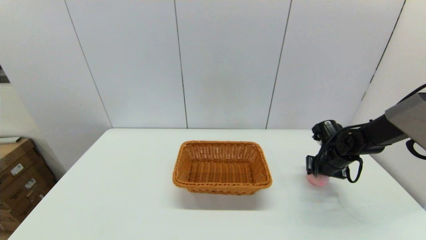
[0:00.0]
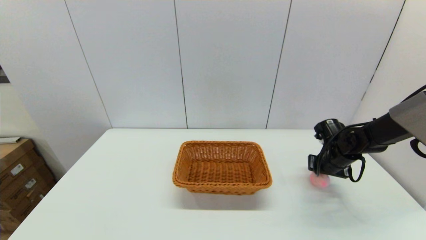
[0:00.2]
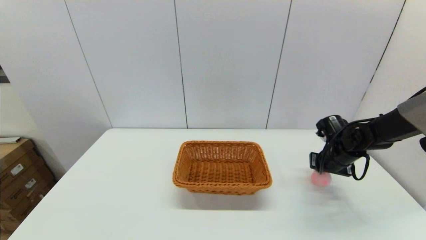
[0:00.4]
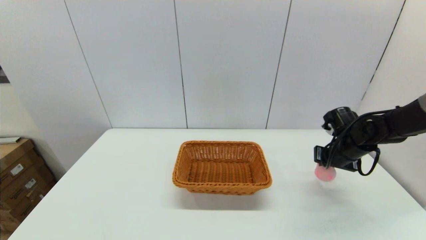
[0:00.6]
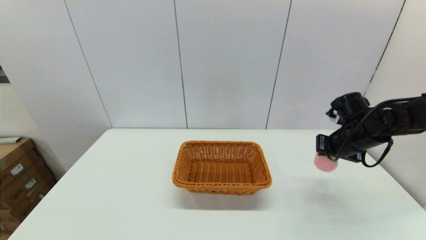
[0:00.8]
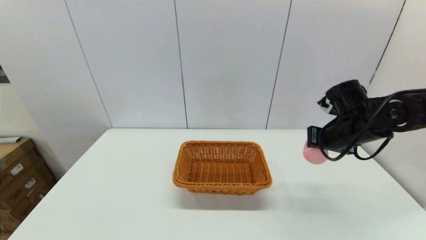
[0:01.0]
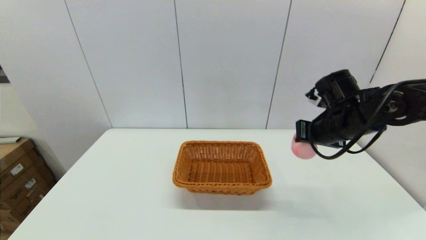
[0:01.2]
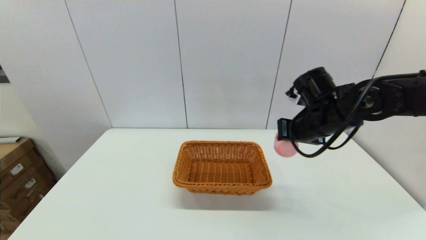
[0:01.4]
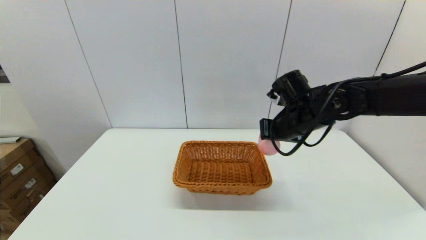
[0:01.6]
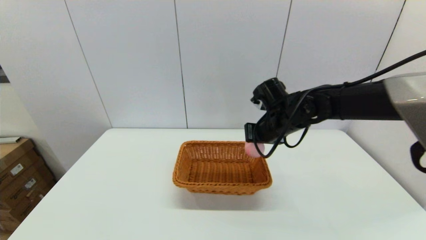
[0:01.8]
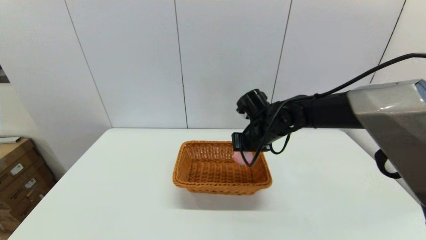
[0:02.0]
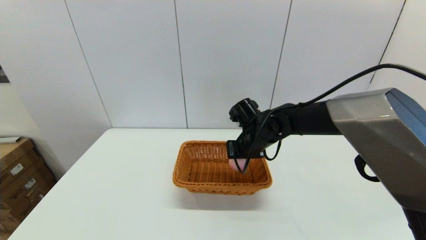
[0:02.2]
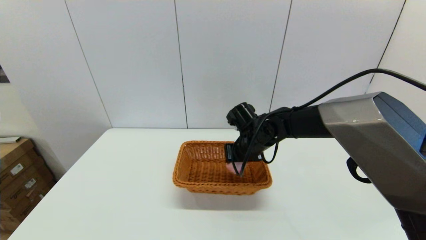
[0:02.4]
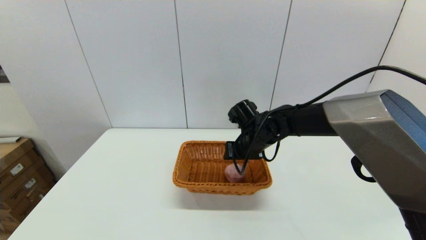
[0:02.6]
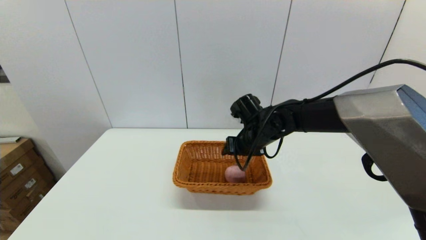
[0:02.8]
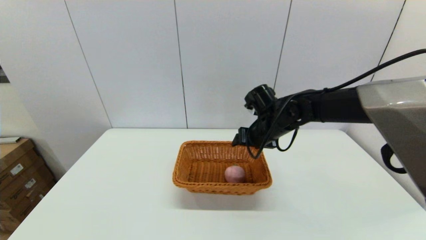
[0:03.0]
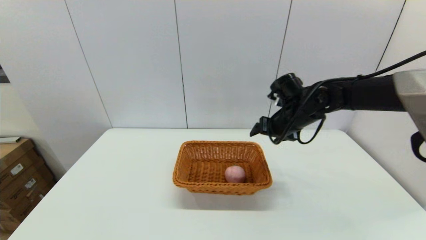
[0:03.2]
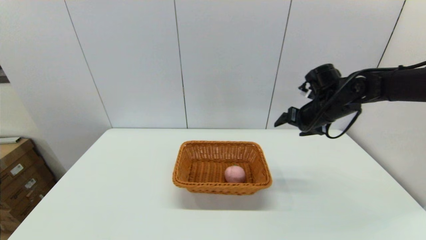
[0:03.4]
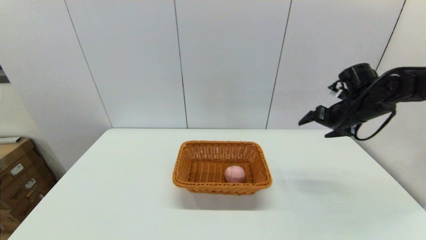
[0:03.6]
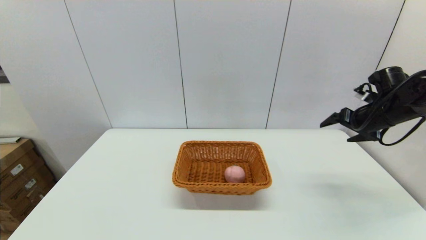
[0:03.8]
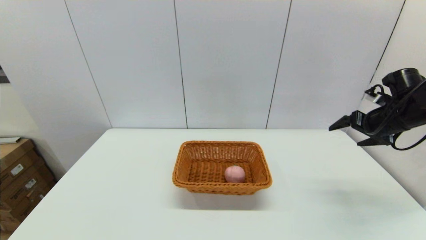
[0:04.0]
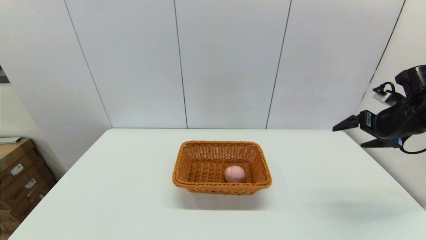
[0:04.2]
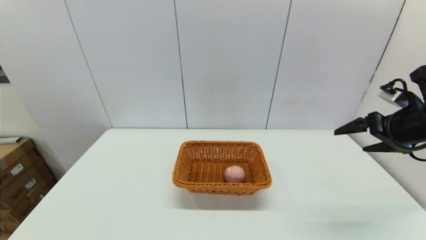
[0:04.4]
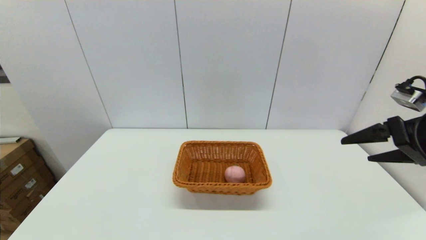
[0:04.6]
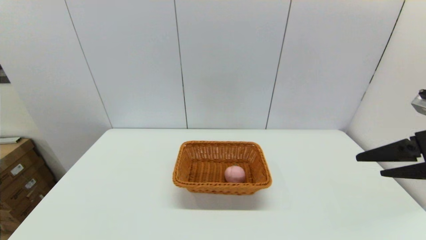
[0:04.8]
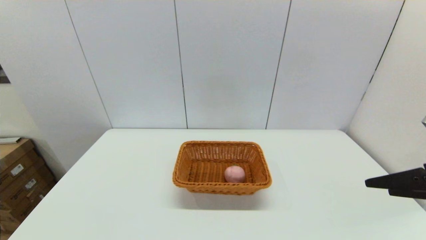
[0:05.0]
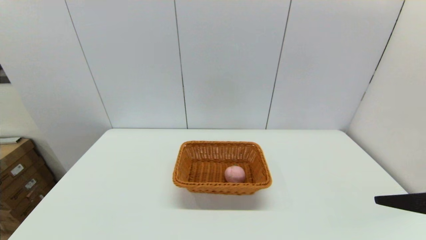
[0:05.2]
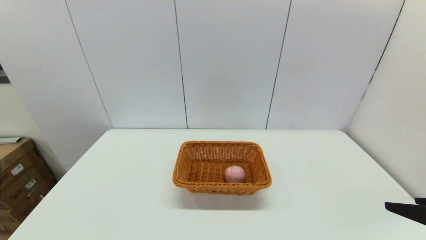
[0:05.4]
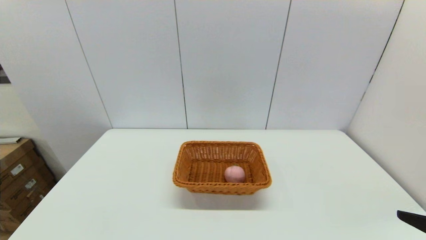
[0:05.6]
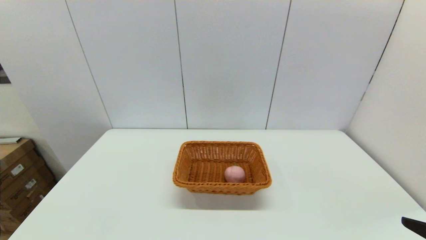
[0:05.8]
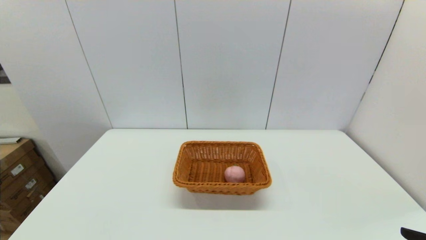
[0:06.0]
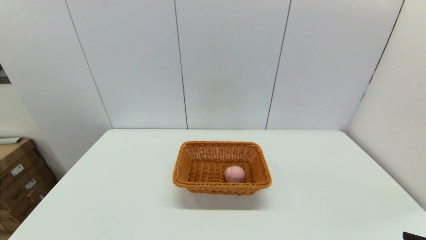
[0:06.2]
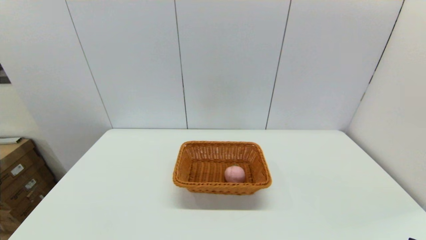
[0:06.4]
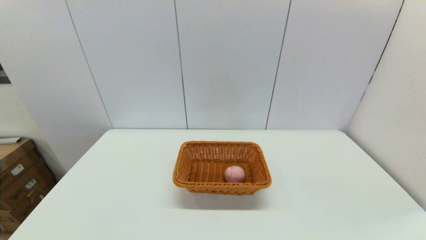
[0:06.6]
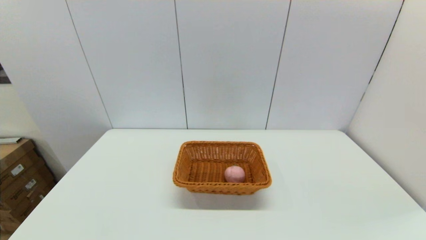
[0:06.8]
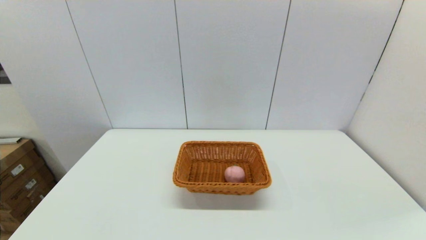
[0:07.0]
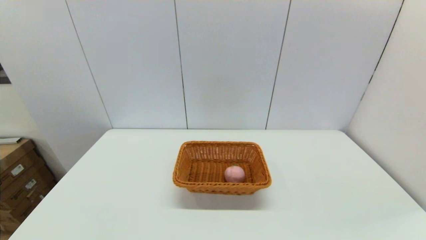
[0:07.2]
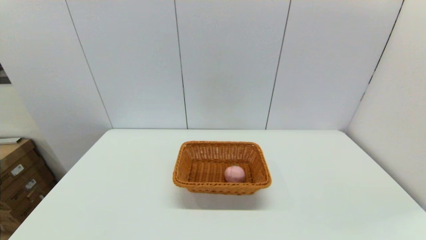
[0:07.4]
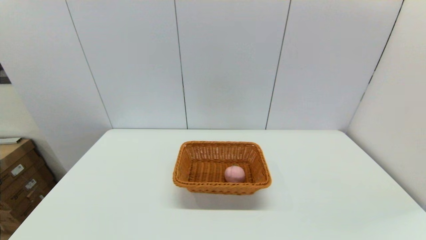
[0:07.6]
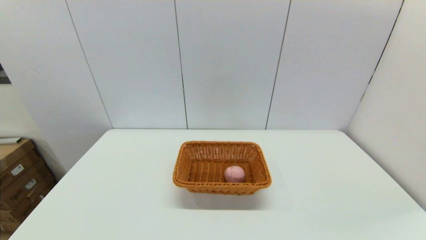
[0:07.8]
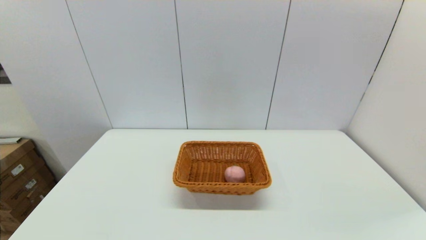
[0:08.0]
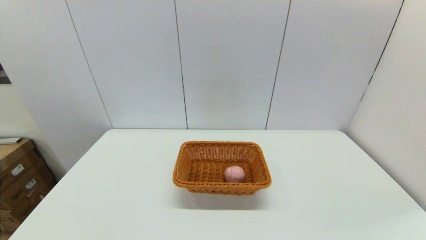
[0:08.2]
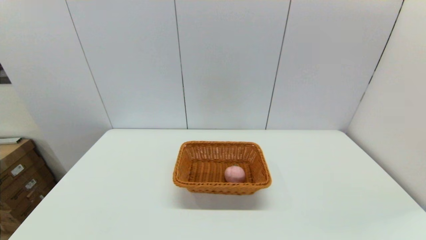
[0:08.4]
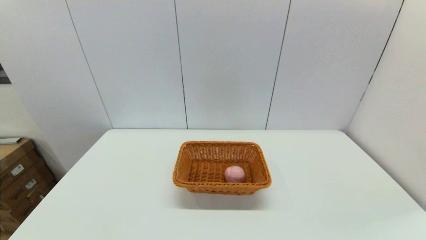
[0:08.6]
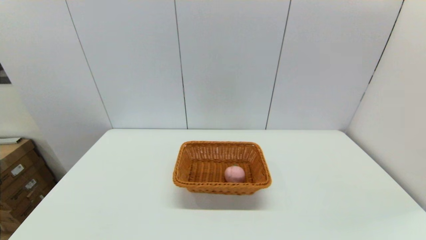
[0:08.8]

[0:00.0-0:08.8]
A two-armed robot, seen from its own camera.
Step, 0:00.4 to 0:02.6: Place the peach into the light basket with the right gripper.
0:00.0 to 0:01.4: The right gripper travels upward and to the left by roughly 20 cm, and closes its fingers.
0:01.4 to 0:03.0: The right gripper goes about 10 cm to the left and forward, and opens.
0:03.0 to 0:04.4: The right gripper shifts some 25 cm to the right and backward.
0:04.4 to 0:05.8: The right gripper goes about 20 cm backward.
